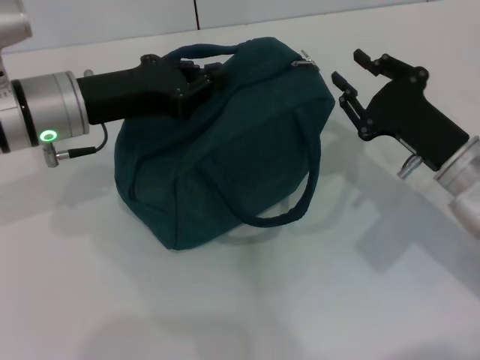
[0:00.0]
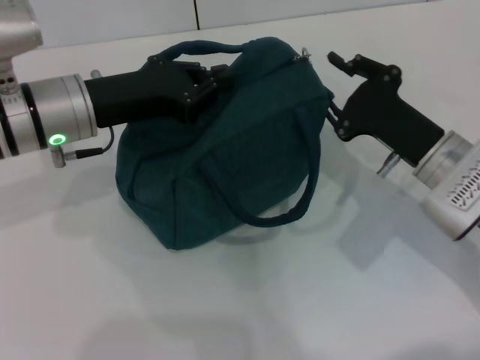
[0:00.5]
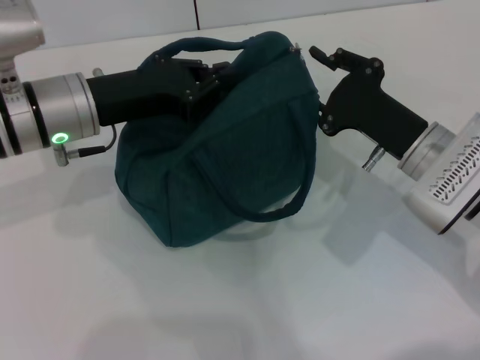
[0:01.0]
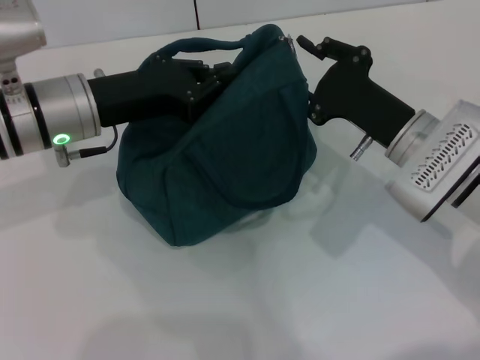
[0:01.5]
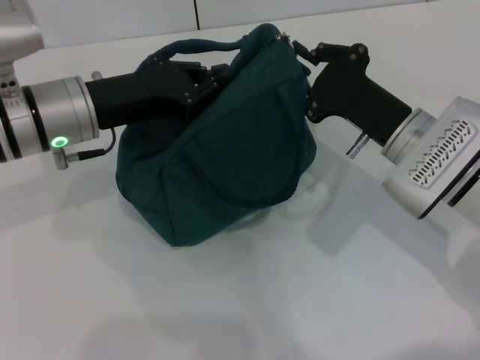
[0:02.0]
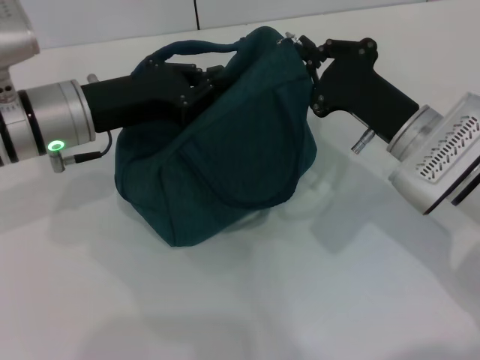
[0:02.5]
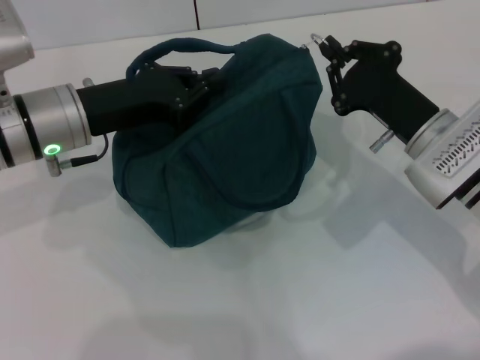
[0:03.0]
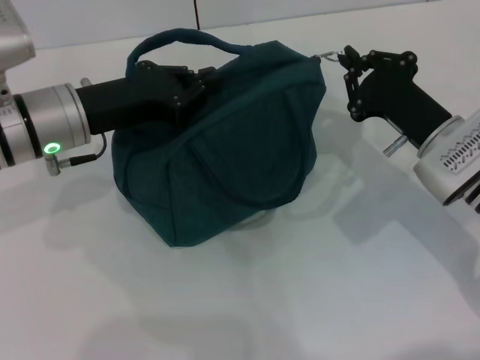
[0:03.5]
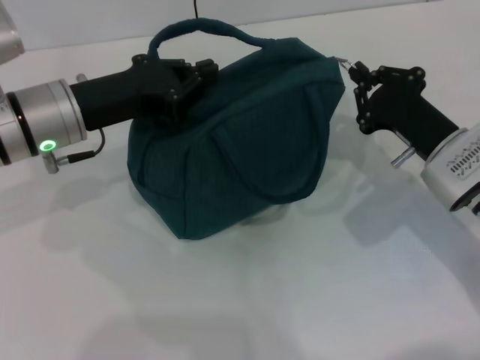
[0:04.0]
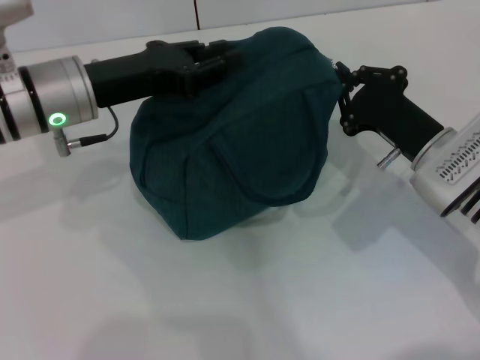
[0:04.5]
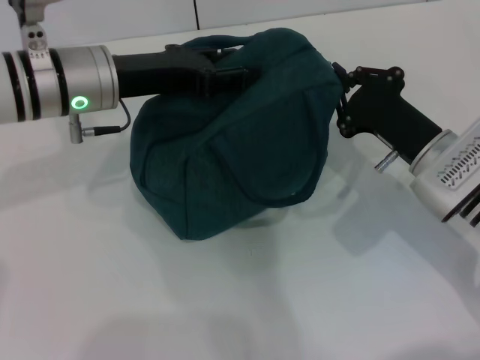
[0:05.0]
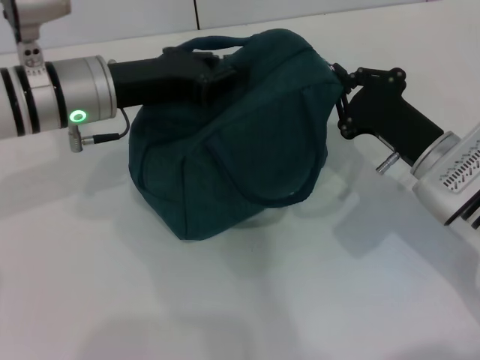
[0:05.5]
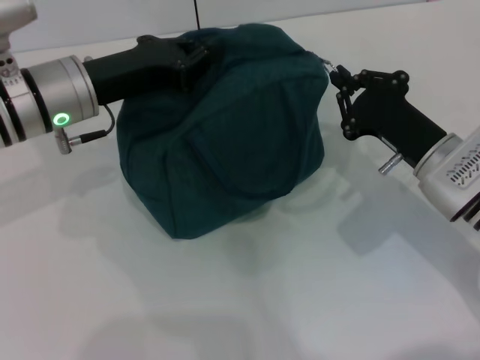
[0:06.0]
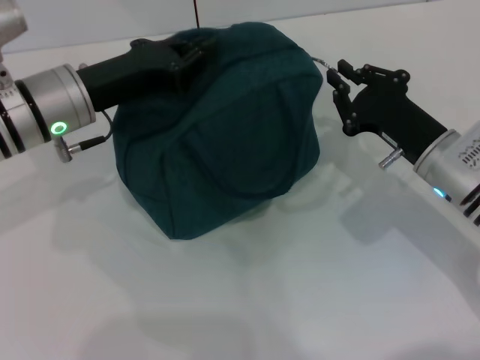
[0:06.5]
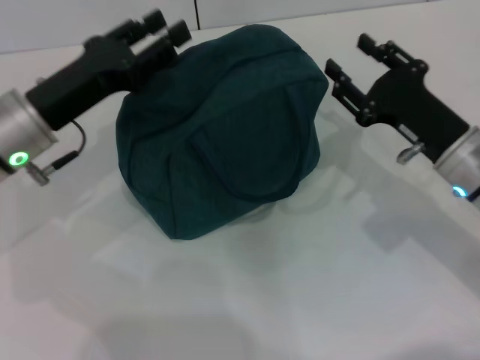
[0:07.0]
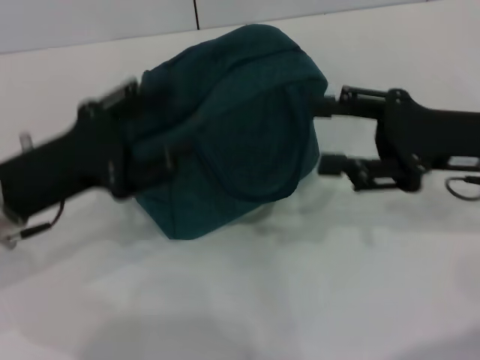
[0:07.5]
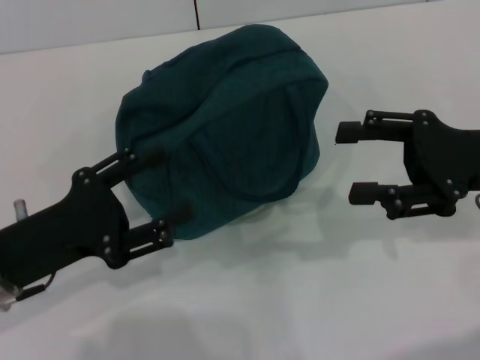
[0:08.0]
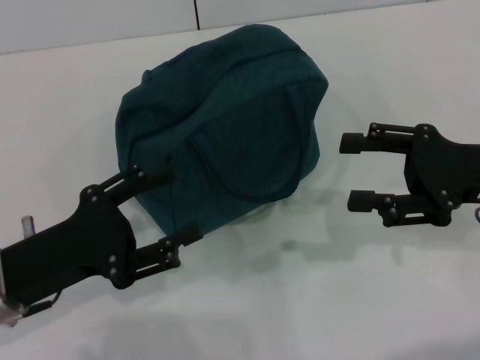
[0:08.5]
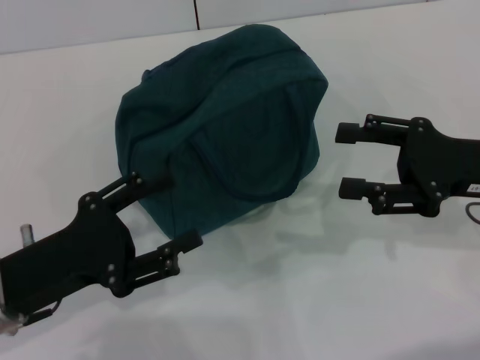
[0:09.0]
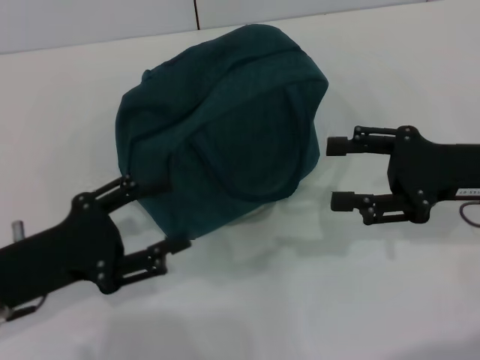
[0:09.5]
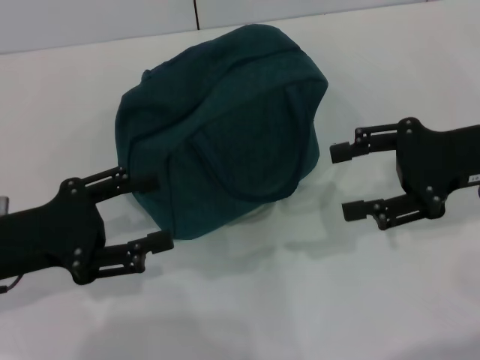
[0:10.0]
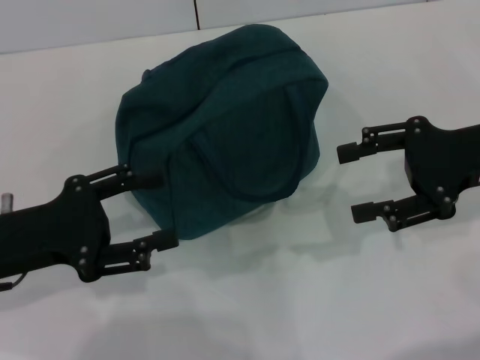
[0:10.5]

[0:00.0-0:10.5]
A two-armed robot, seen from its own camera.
Step, 0:00.0 to 0:06.5: Zip up the lunch bag with your right hand.
0:00.0 to 0:02.0: The right gripper shifts by roughly 5 cm.
0:02.0 to 0:04.0: The right gripper ends up approximately 5 cm from where it was.
0:04.0 to 0:06.5: The left gripper opens and closes again.
0:06.5 to 0:08.5: The left gripper goes roughly 15 cm backward and to the left, and opens. The right gripper shifts roughly 10 cm upward and to the right, and opens up.
0:08.5 to 0:10.5: There are only small adjustments of the grippers.
